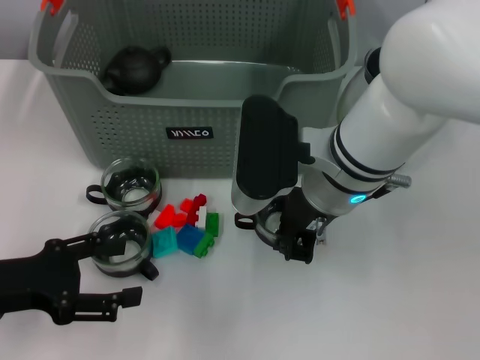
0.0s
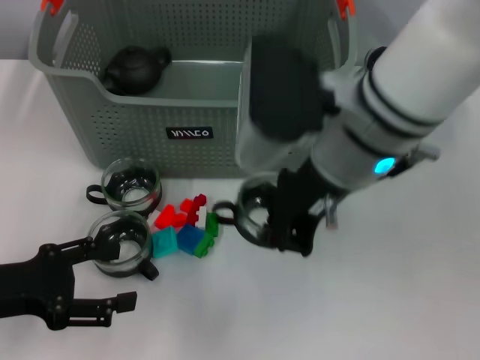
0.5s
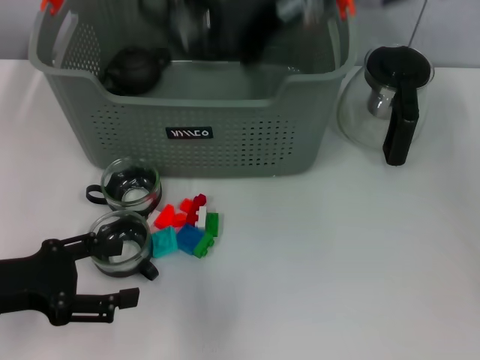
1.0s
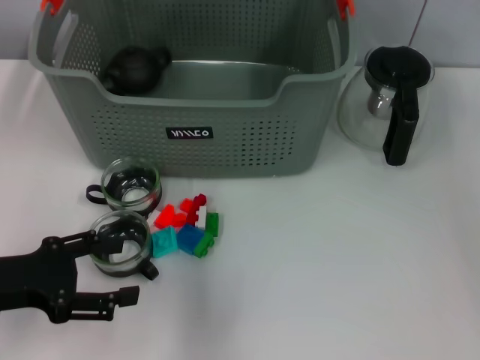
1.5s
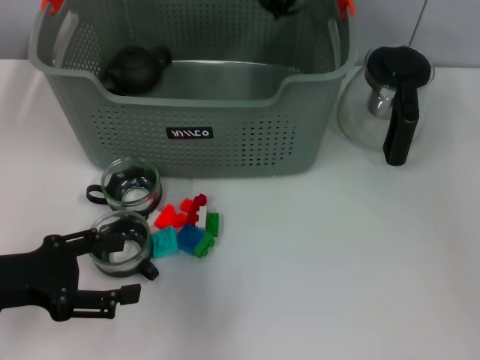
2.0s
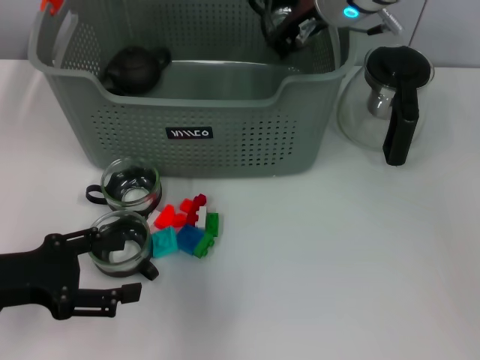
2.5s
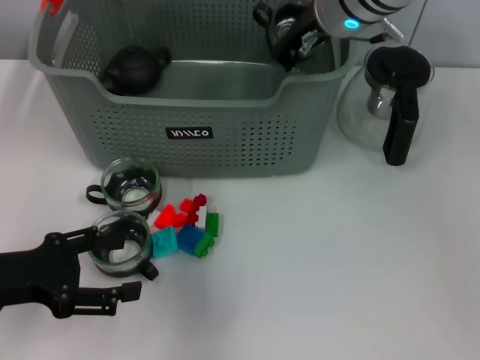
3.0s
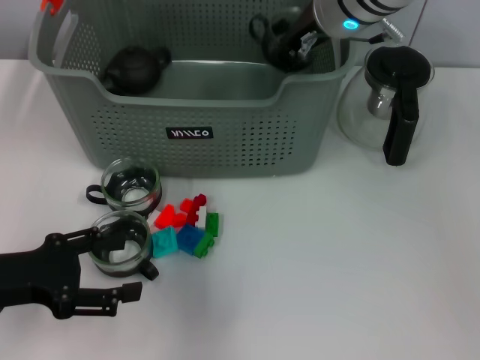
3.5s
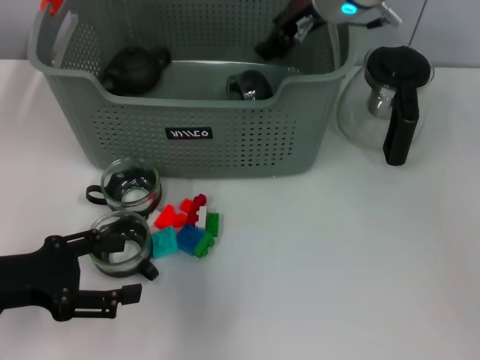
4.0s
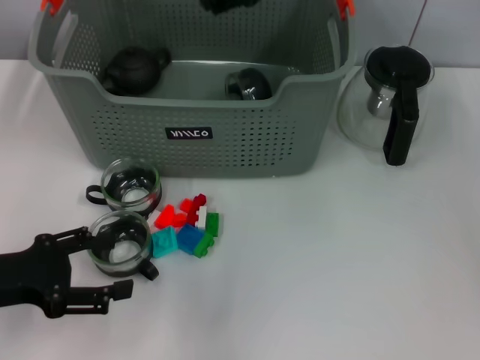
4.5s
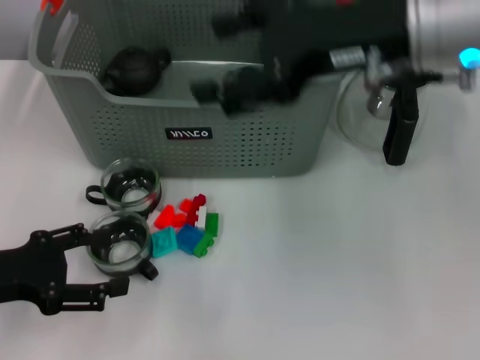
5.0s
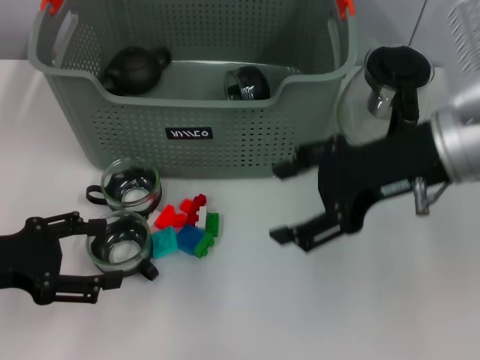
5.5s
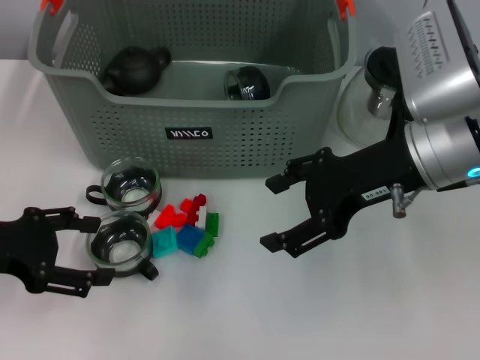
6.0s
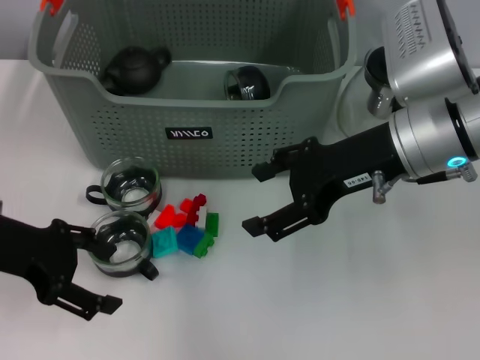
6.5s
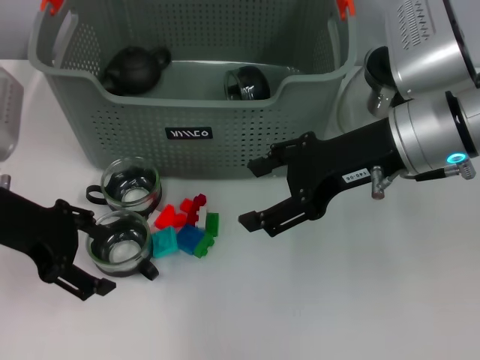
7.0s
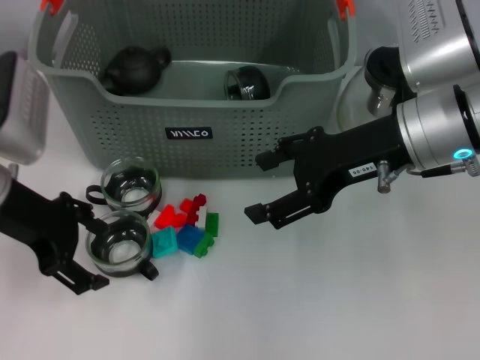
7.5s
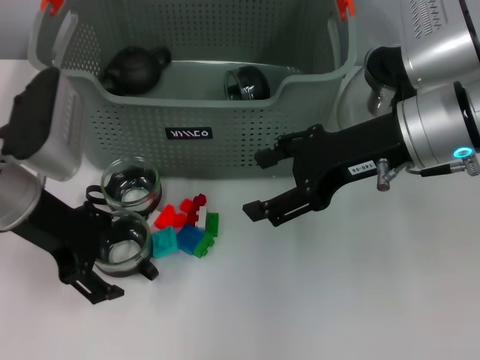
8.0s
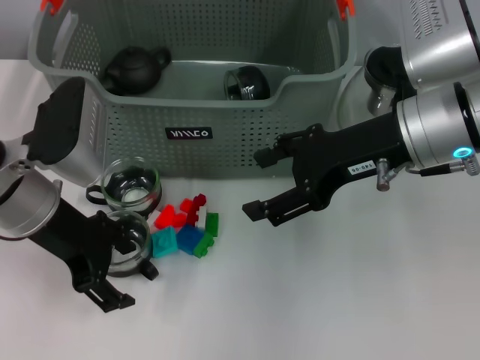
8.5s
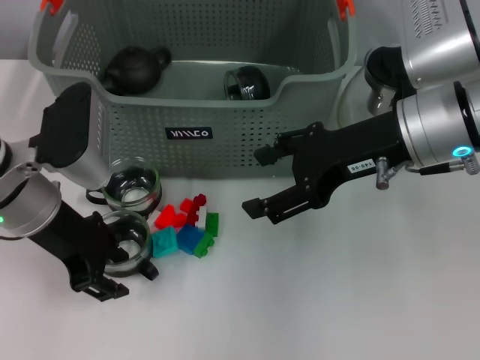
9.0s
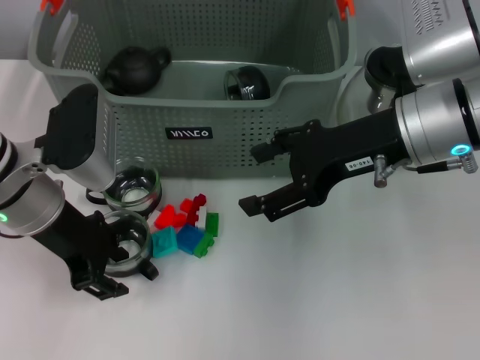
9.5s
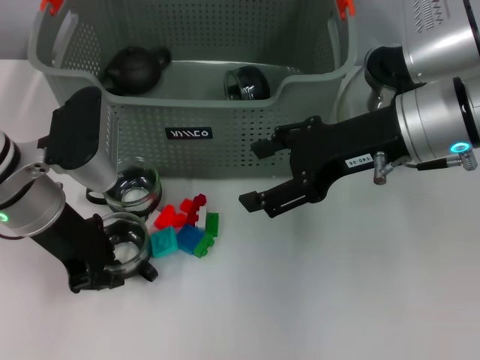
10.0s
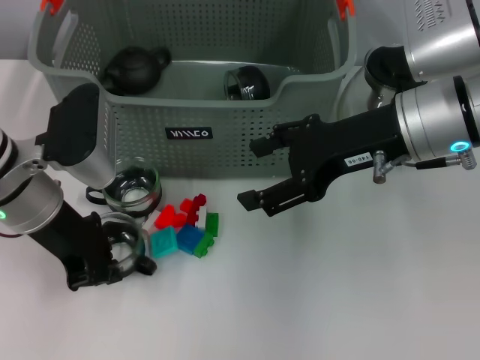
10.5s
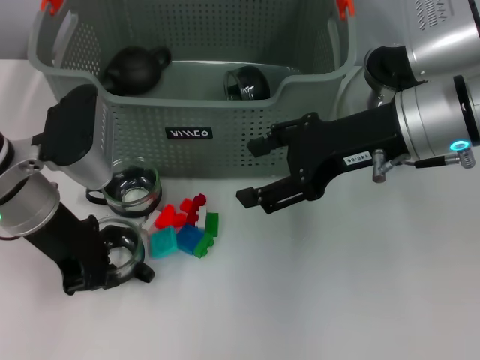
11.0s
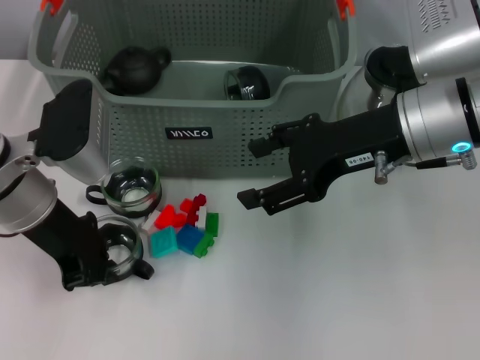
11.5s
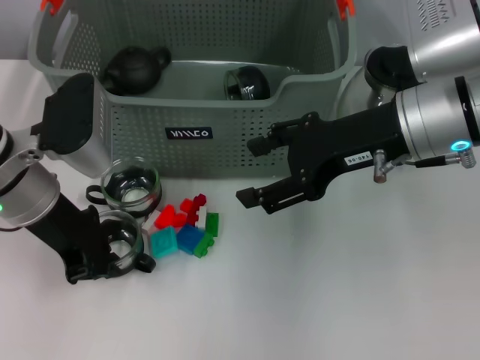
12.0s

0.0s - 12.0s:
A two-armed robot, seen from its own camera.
Task of the whole recording: pick up the teacup on the table and place it into the storage bin, pick up the block on the table and place it into the storage bin.
Step, 0.0s - 4.0s: Place the cup in the storage box with right gripper.
0.0s - 2.0s: The right gripper shifts approximately 20 cm forward and upward.
2.0s - 4.0s: The right gripper opens its fingers.
4.0s - 6.0s: The right gripper travels backward and to the right by roughly 15 cm, and opens up. The left gripper ends up approximately 5 cm from where it was.
6.0s - 8.0s: The left gripper goes roughly 10 cm to the right and forward.
8.0s - 10.0s: The left gripper closes.
10.0s - 12.0s: The two grippers keep their place.

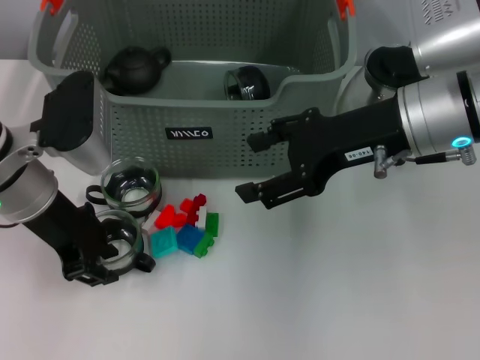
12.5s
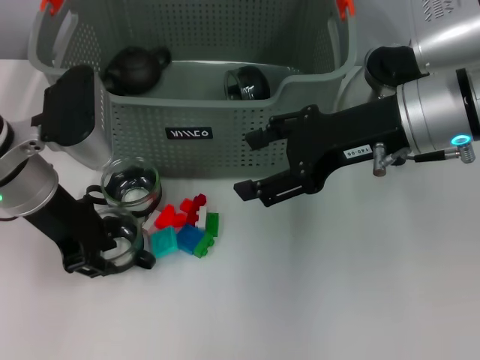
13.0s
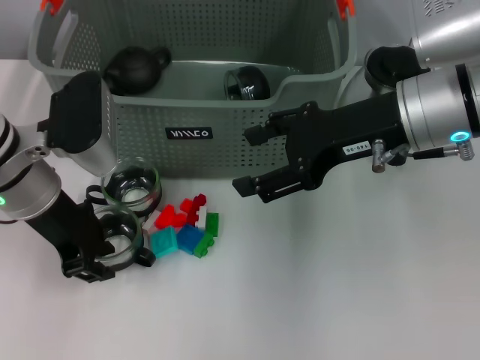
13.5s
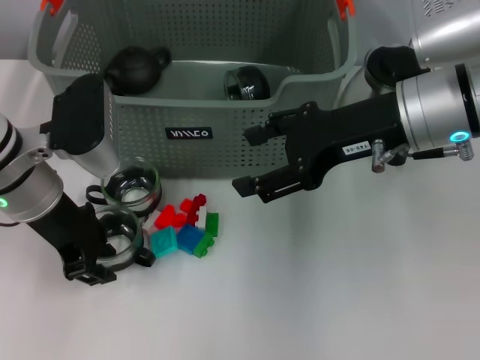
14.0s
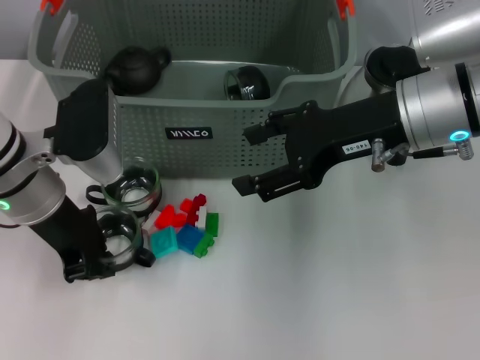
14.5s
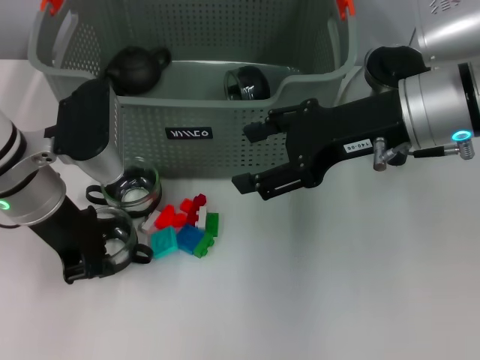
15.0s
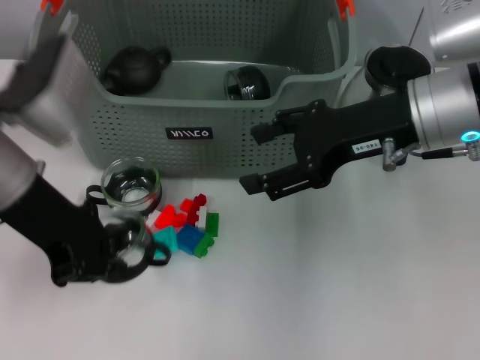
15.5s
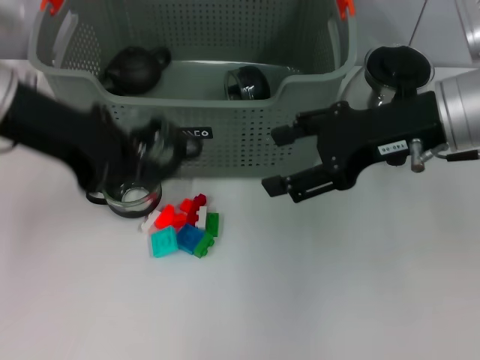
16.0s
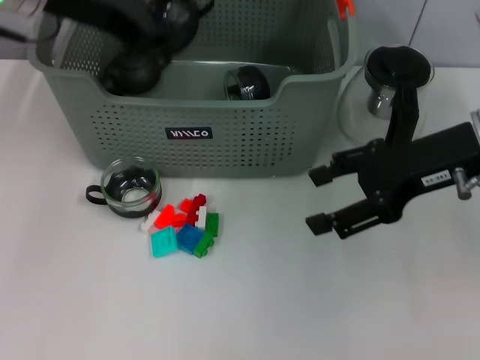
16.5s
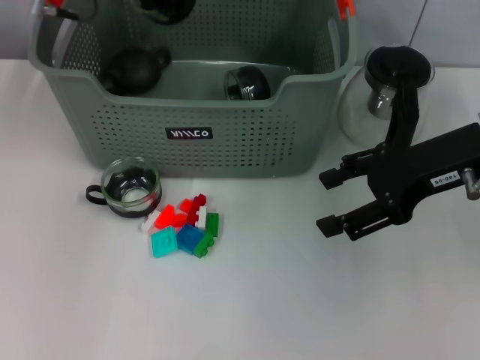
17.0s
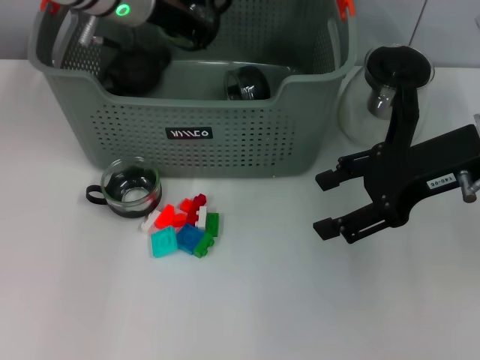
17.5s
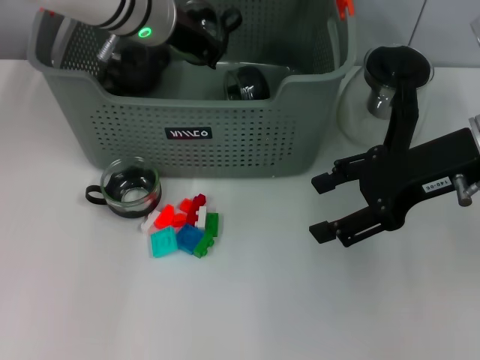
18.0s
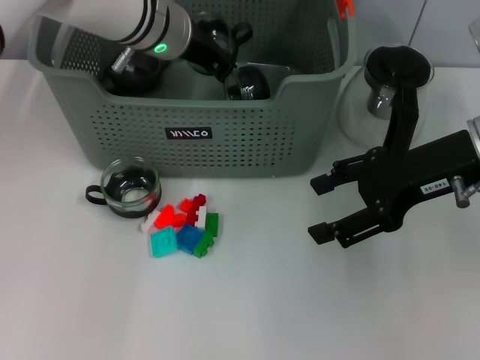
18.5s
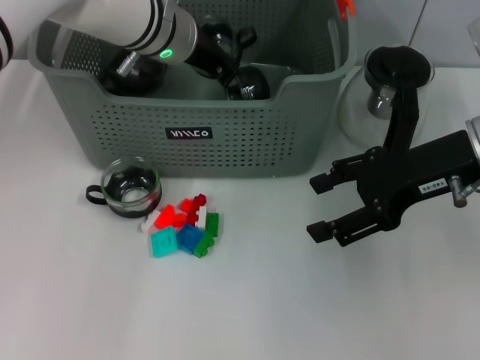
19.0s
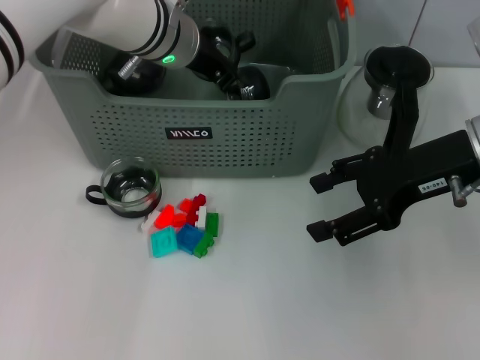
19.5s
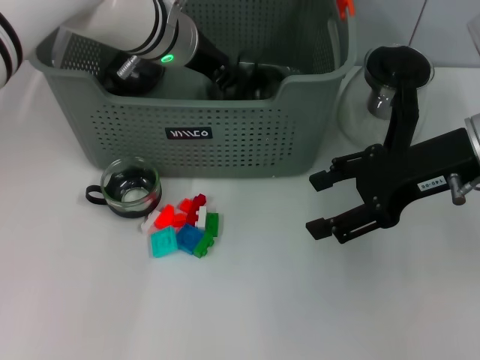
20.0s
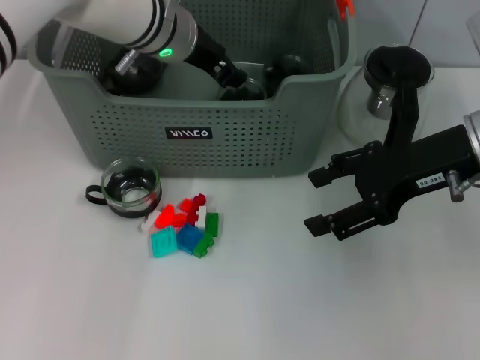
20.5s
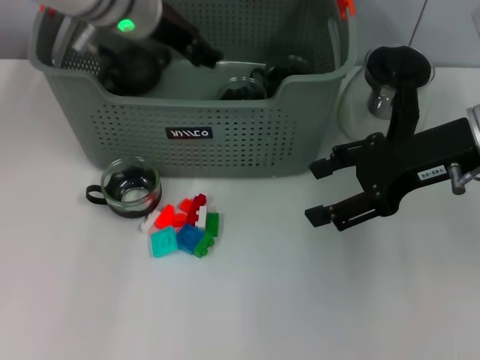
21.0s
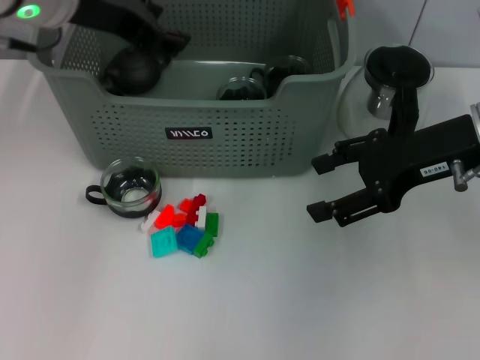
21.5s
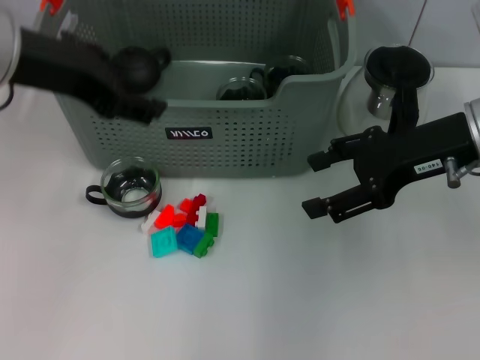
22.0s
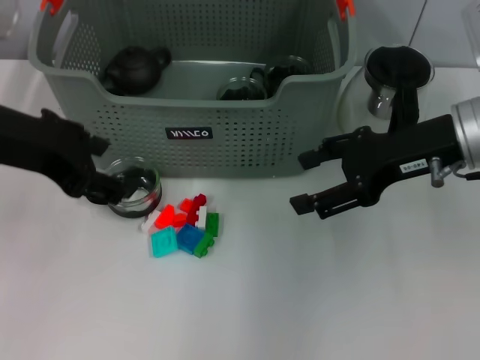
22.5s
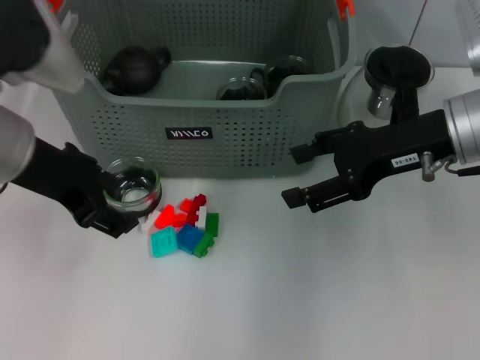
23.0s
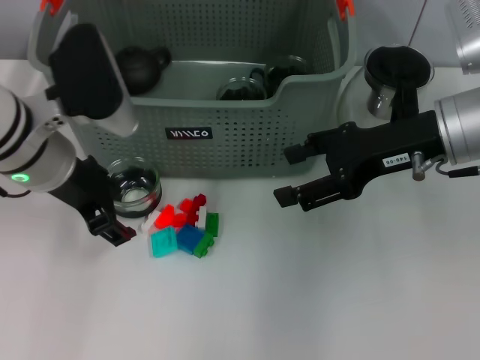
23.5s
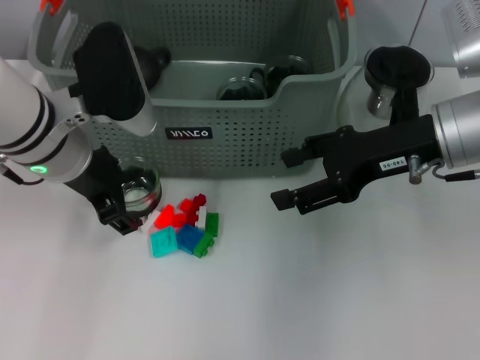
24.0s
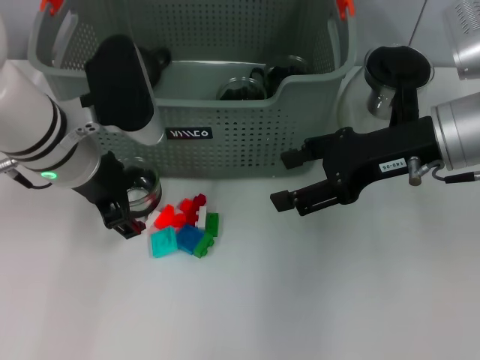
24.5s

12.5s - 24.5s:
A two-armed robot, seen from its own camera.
Task of the whole recording: pick up the teacup on the table and place it into the storage bin, pick up the block on the table and place it into the storage bin.
Step, 12.5s - 14.5s: Grasp the cup with left gripper.
Step, 15.0s - 20.5s: Place the cup in the storage box with left gripper.
12.5s - 14.5s: Both grippers stay about where they are.
14.5s - 16.5s: The right gripper goes some 5 cm to the right, while the left gripper shifts roughly 15 cm upward and forward.
16.5s - 18.5s: The left gripper heads to the right, downward and forward, covering approximately 15 cm.
18.5s - 20.5s: The left gripper opens.
20.5s - 22.5s: The left gripper is displaced backward and to the left by approximately 20 cm.
22.5s - 24.5s: The left gripper goes some 15 cm downward, forward and to the right.

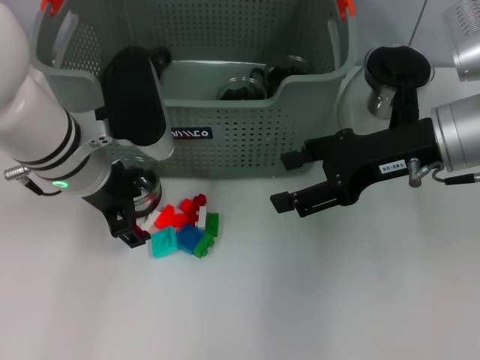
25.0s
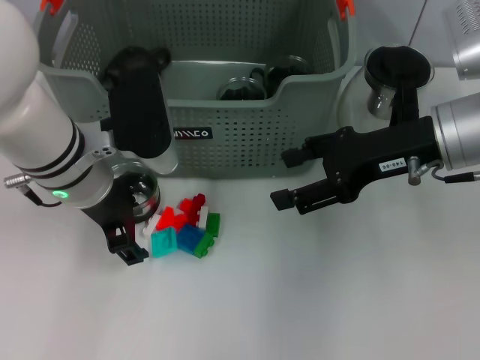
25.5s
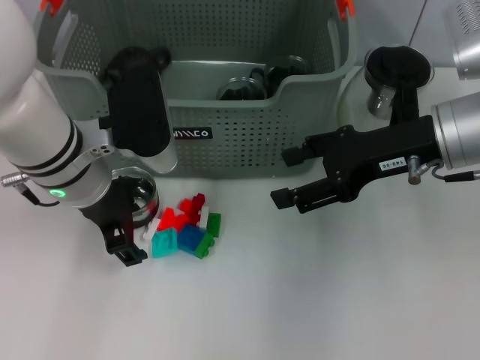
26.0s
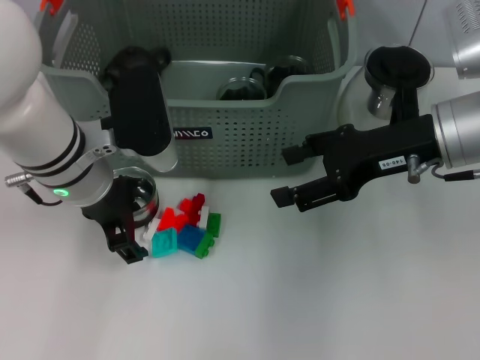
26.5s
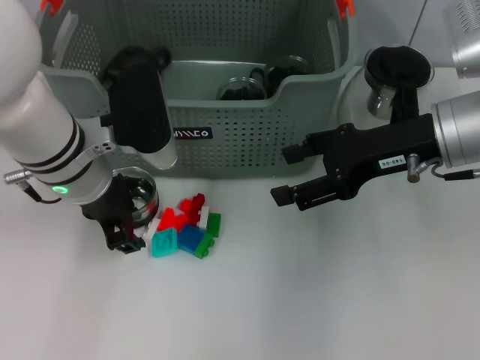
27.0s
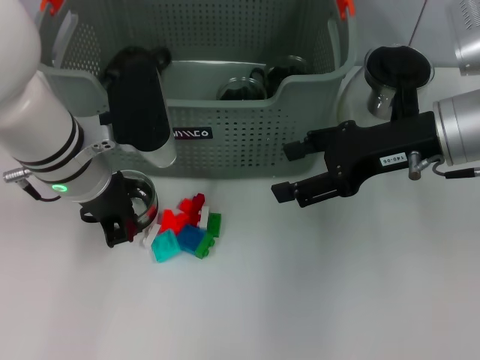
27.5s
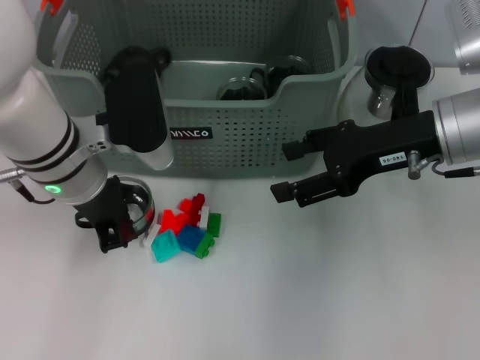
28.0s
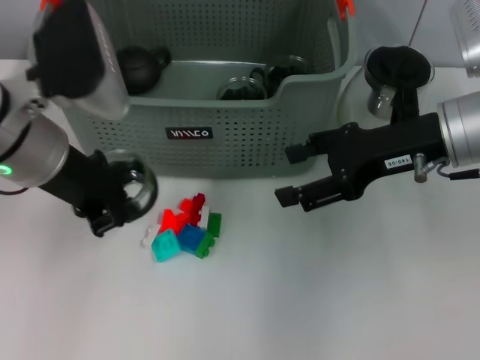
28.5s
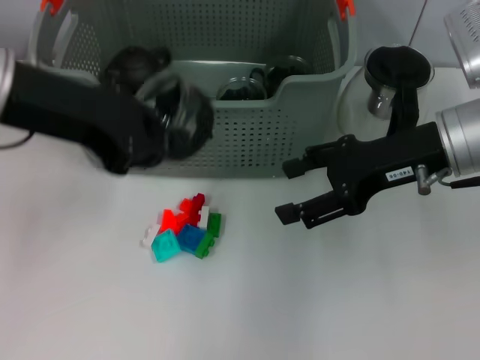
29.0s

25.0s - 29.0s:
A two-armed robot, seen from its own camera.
Task of the whole recording: pick up the teacup on the table and place it into the storage bin, pick up the block on the table and place it into the storage bin.
Step, 25.0s - 27.5s: Grasp the cup with left gripper.
25.0s - 27.0s: The grippers make only small movements.
27.0s - 29.0s: The left gripper travels upward by about 15 cm, and closes.
